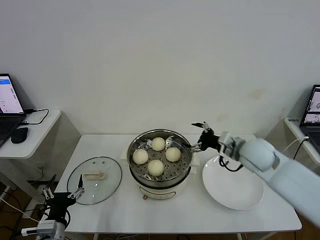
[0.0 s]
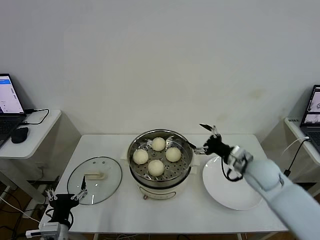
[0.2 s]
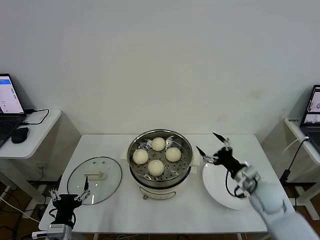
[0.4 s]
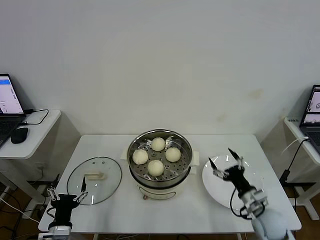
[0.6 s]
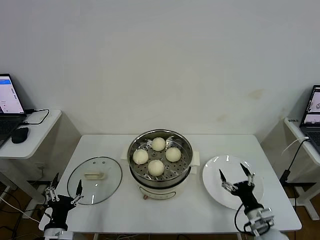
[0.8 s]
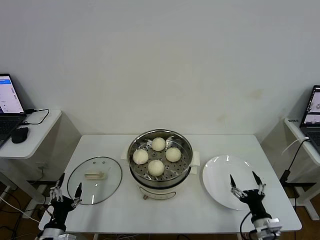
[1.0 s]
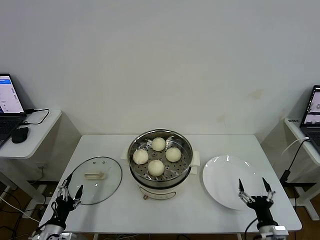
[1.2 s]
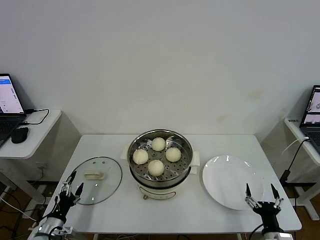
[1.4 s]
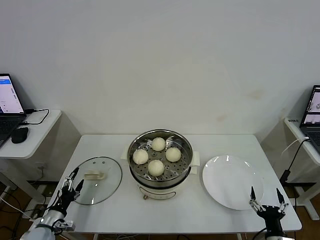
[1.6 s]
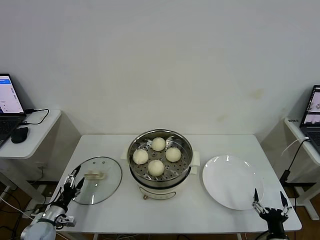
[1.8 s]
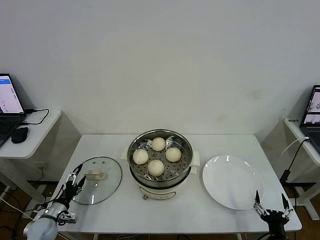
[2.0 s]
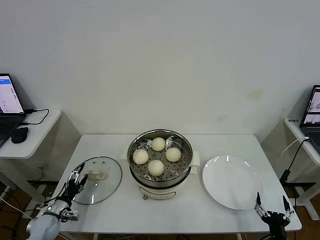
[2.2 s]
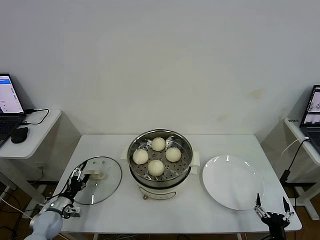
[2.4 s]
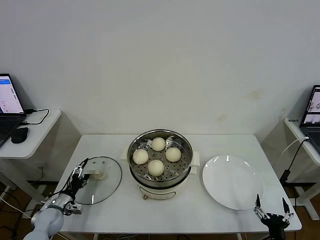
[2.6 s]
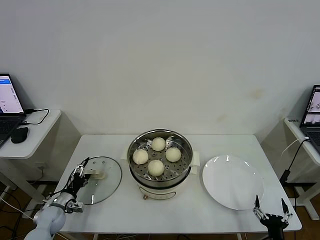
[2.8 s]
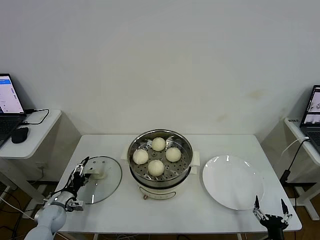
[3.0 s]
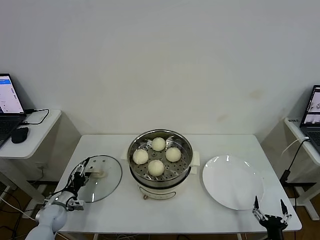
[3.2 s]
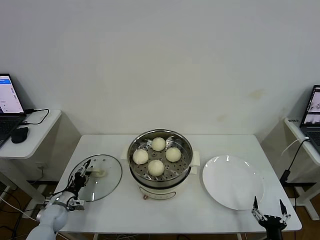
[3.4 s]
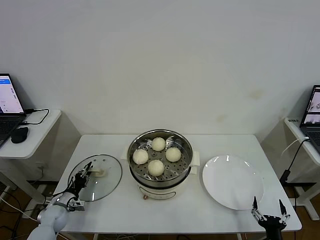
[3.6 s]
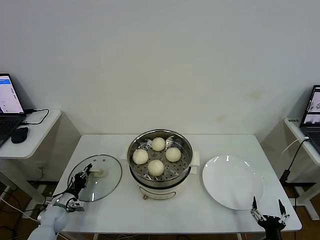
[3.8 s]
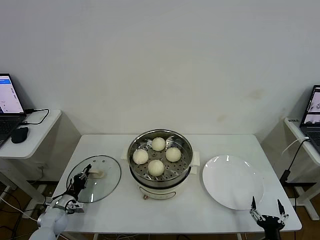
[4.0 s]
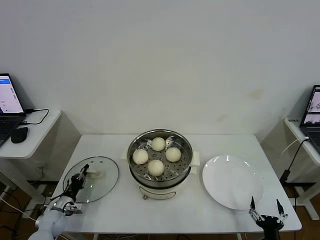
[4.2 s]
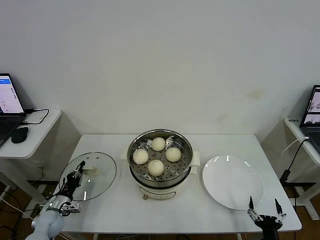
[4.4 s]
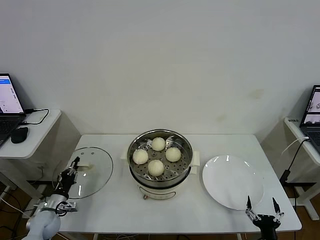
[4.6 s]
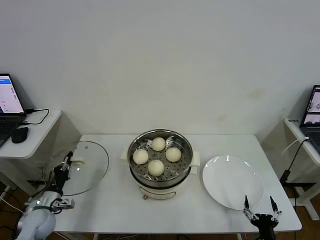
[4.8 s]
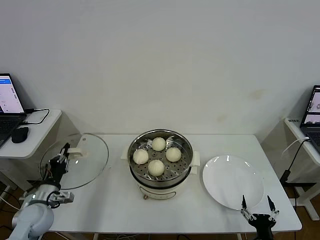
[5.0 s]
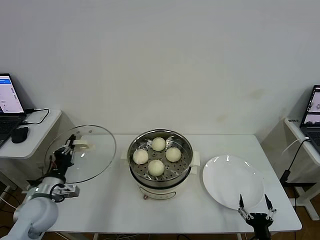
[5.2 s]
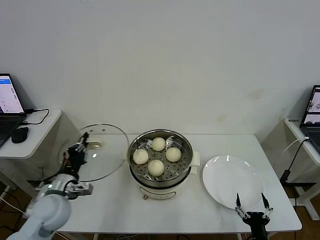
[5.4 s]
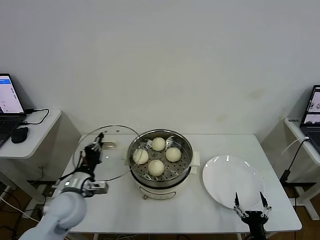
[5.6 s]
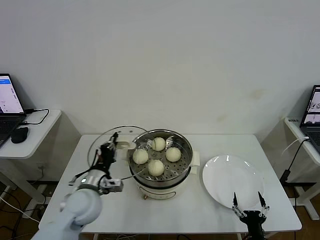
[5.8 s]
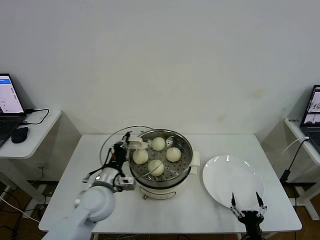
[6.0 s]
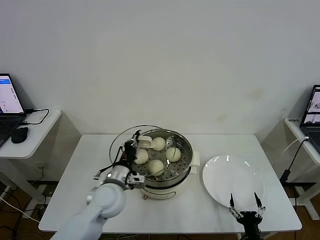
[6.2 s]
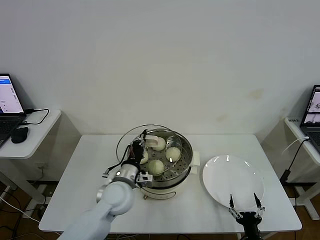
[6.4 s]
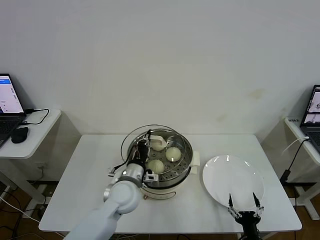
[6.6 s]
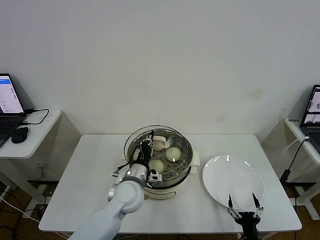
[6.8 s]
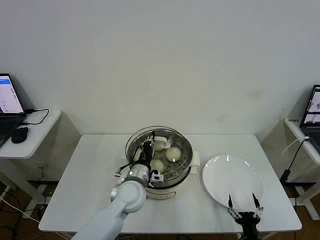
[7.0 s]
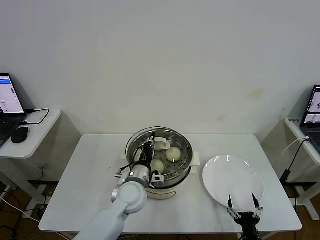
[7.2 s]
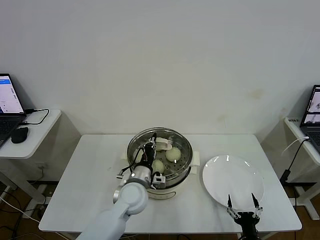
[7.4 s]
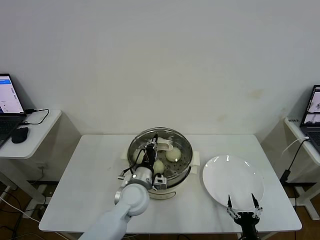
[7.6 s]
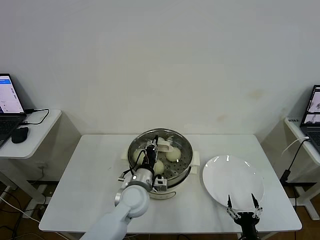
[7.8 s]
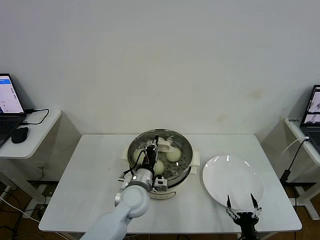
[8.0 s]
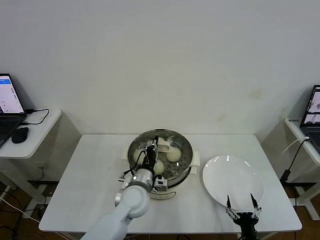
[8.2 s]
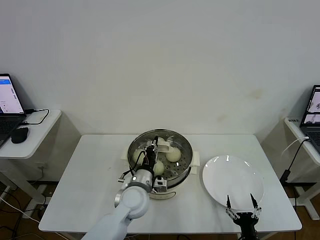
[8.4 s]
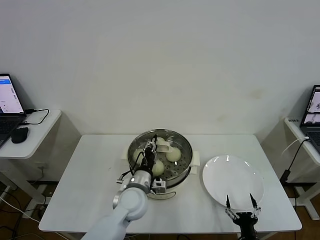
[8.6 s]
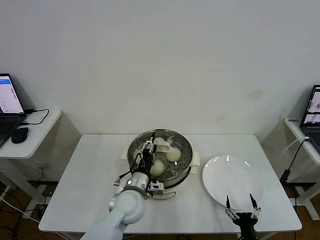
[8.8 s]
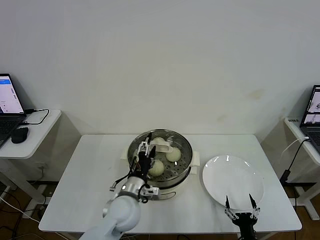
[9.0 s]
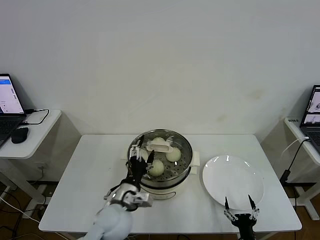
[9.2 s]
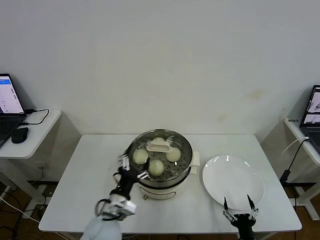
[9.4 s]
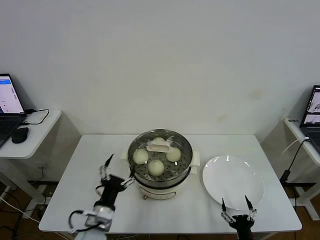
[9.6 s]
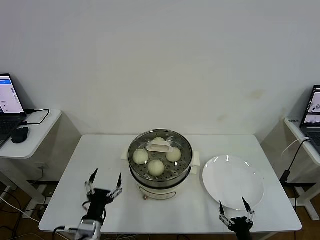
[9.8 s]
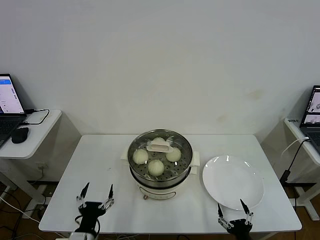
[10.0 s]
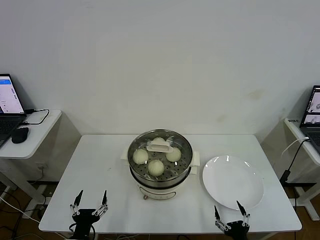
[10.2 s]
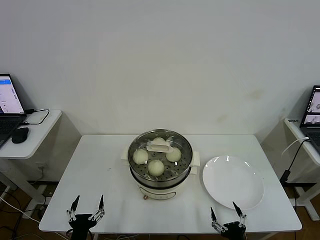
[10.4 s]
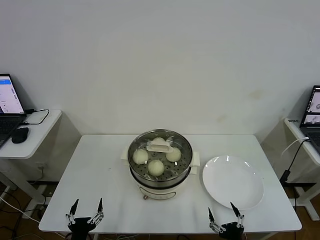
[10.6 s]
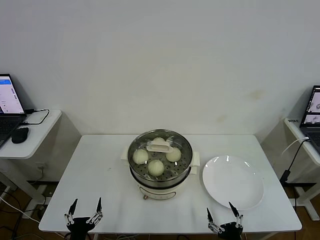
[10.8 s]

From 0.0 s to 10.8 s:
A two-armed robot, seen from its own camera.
Task of the whole recording: take steamed baozi put them in steamer then cover it.
Step, from 0.0 s to 4.0 s: Grasp the pot lid with left gripper.
Step, from 4.2 s to 8.8 s: Place the pot lid on the steamer with left gripper.
From 0.0 s to 1.6 s: The left gripper is displaced downward, to the left and forward by some 20 cm; the right gripper moves backward and downward, roughly 35 cm.
From 1.6 s to 3.0 s: The left gripper travels forward by about 10 cm.
From 3.0 s to 4.6 s: The left gripper closes.
From 4.6 s to 6.2 s: The left gripper moves to the right and upward, some 30 cm.
From 6.2 s to 7.8 s: The left gripper moves to the right, about 10 cm.
From 7.8 s to 9.2 s: The left gripper travels backward by about 5 cm, and opens its fingers.
From 9.2 s to 10.8 s: The right gripper is displaced upward by approximately 5 cm; the left gripper heads backward, to the left and downward, covering some 25 cm.

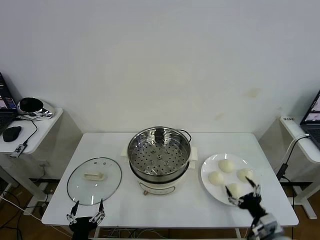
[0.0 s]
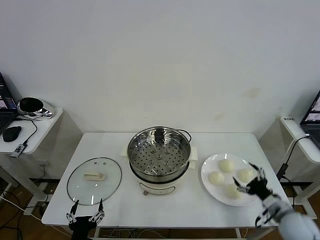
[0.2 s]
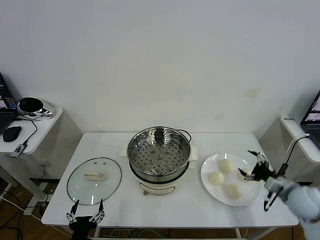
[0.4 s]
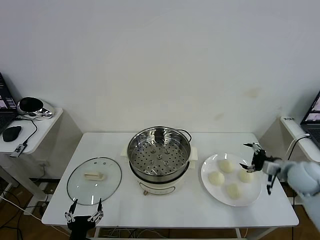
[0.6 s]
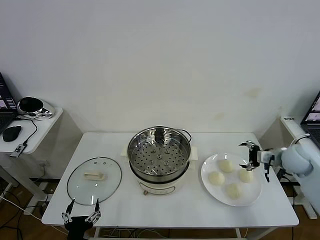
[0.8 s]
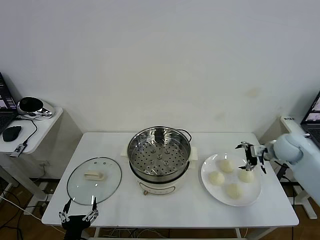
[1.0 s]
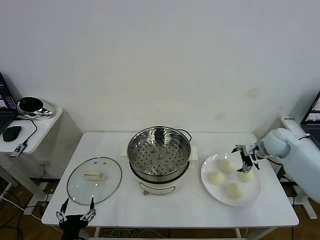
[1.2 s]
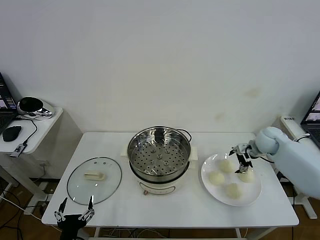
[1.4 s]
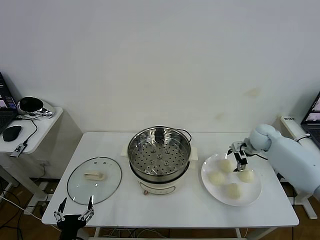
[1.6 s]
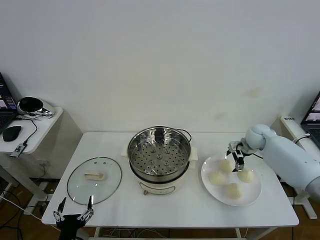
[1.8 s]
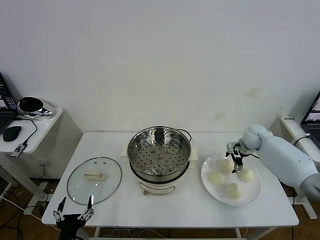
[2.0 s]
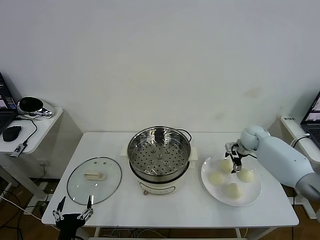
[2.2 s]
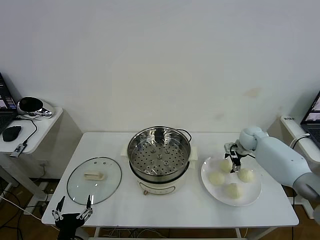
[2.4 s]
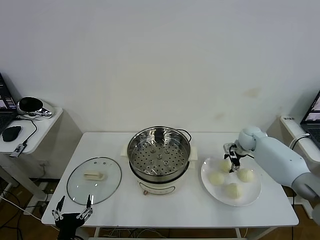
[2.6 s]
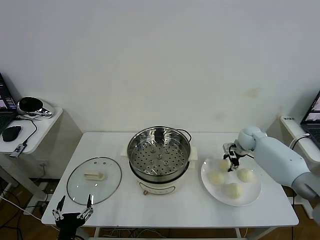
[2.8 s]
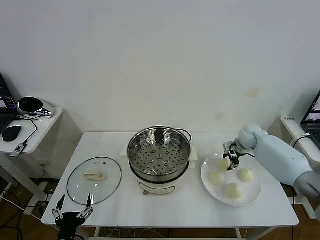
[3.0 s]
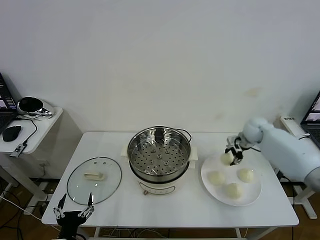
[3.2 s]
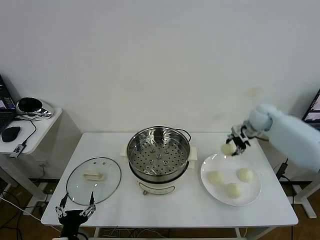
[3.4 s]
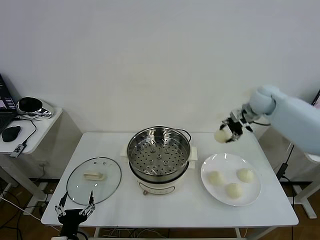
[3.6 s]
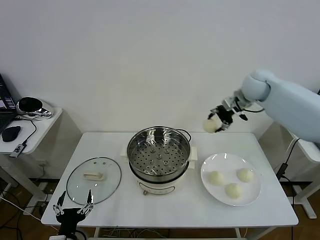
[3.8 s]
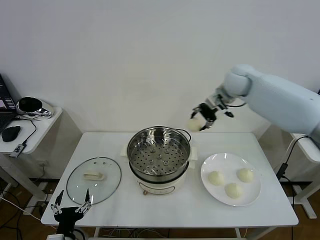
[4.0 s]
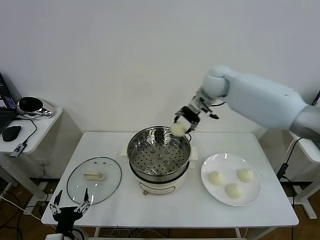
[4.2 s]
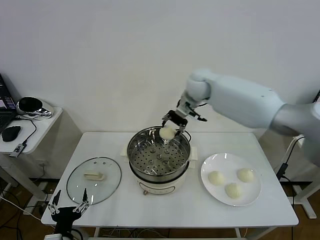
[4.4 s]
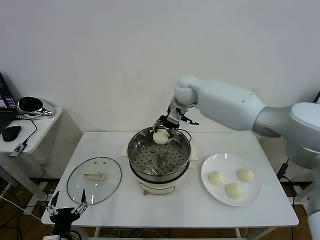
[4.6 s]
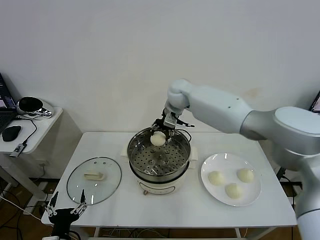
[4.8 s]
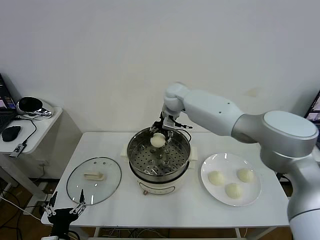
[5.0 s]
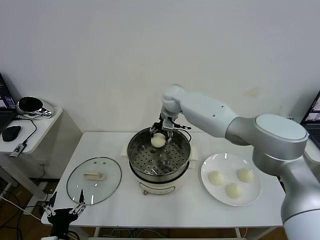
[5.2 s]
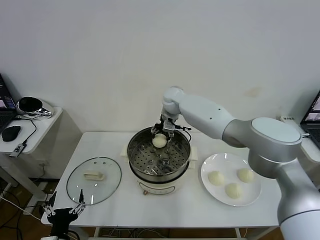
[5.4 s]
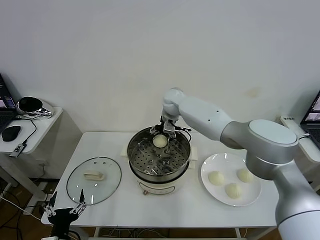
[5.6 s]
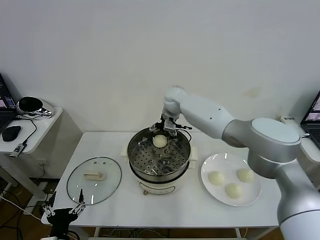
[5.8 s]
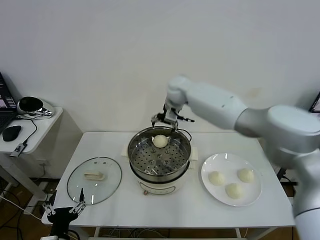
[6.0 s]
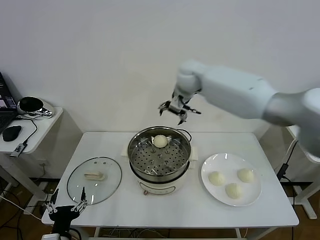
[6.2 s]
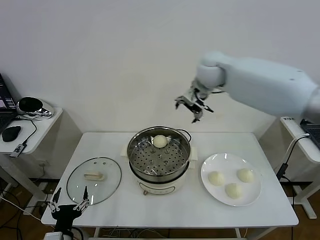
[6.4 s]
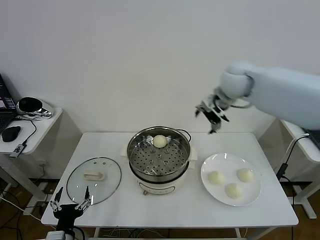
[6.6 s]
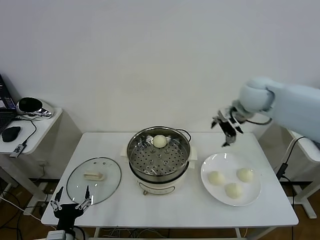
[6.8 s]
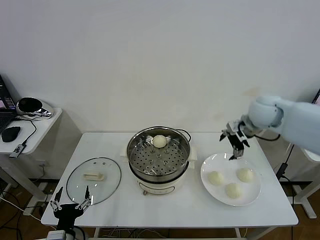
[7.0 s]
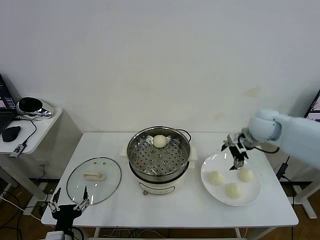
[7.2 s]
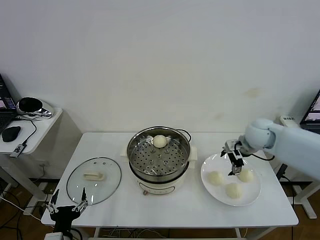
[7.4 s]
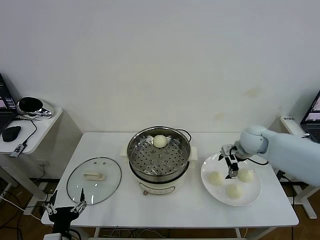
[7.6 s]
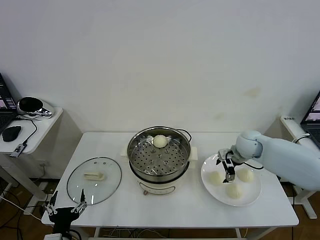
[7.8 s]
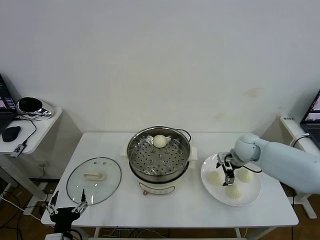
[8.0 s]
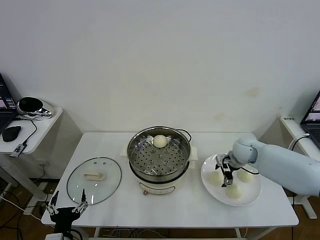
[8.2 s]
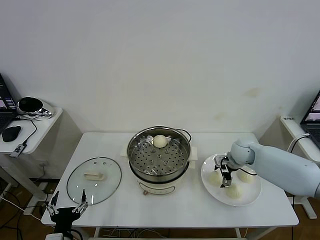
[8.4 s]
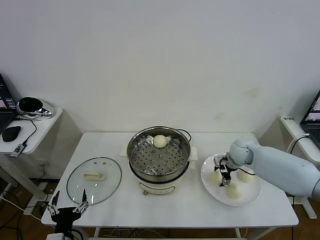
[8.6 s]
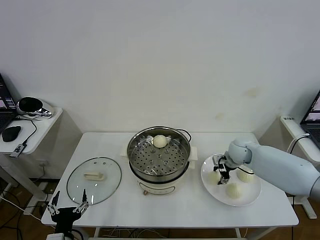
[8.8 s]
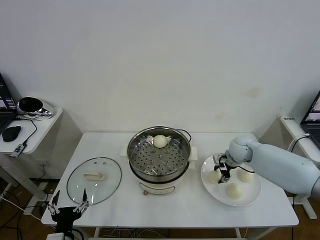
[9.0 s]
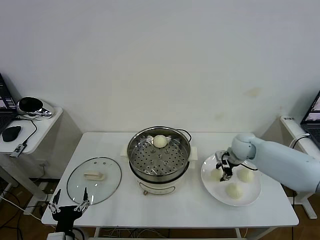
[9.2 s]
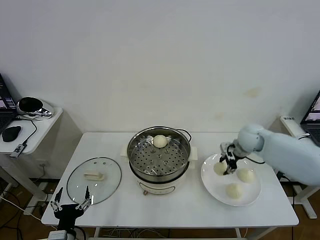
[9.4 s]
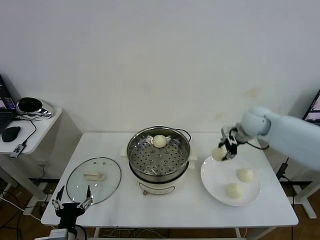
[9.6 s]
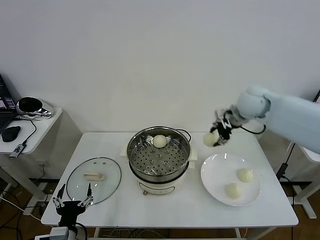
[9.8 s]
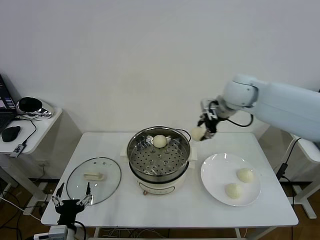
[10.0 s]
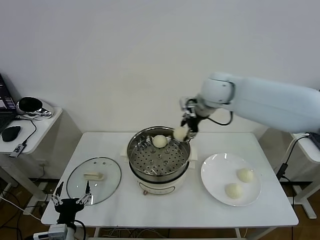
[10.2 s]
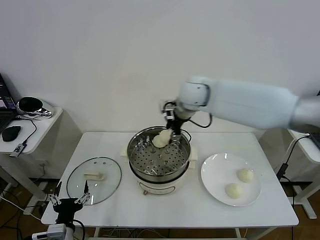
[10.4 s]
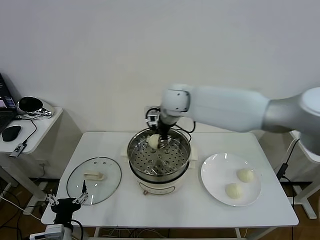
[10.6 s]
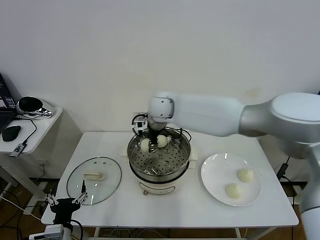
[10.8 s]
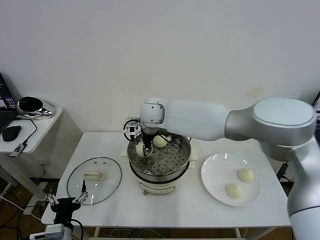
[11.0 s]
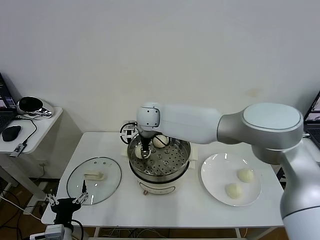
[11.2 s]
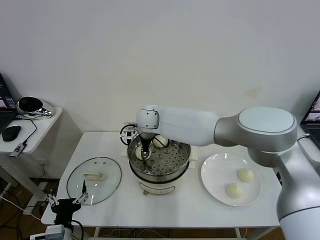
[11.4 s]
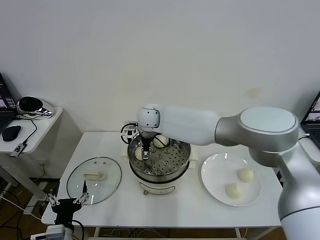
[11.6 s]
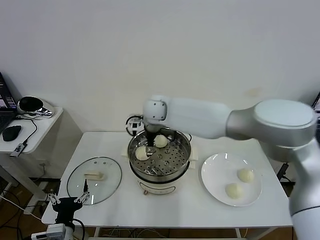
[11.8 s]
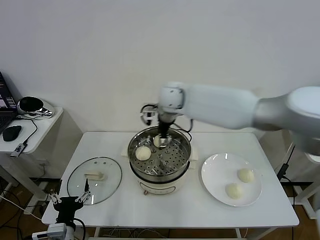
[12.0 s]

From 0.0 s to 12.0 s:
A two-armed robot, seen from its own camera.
Task of the whole recording: take steamed baozi put them in steamer then cover it.
Step, from 0.0 s to 2.8 s: Grasp the baozi in the plate with right gripper.
Step, from 3.0 s to 5.8 s: Place the baozi on the steamer with right gripper.
Step, from 6.0 s to 8.8 s: Grasp the baozi in the plate with right gripper.
Step, from 9.2 s to 11.8 s: Place the baozi on the steamer with right gripper.
From 1.6 s to 3.0 s: The right gripper closes.
From 3.0 s to 4.4 s: The right gripper heads to the left and upward, covering some 30 cm.
From 4.4 s to 6.0 s: The right gripper moves approximately 5 cm downward and comes back, and opens up.
From 6.0 s to 7.6 s: The right gripper moves to the right, downward and backward, some 30 cm.
From 7.6 s to 9.0 s: The right gripper moves approximately 5 cm, and closes its fingers.
From 9.0 s to 10.4 s: The right gripper heads to the left and upward, covering roughly 30 cm.
From 10.4 s to 12.0 s: The right gripper travels to the left and back again, approximately 10 cm each way, and opens its fingers.
